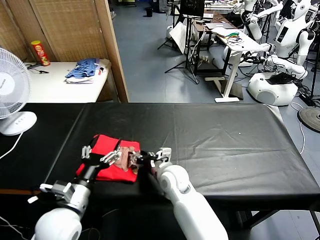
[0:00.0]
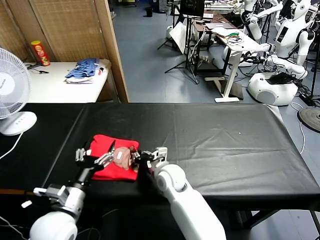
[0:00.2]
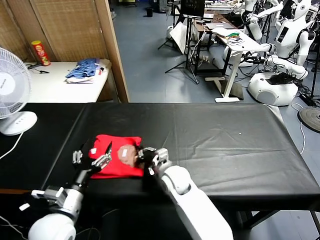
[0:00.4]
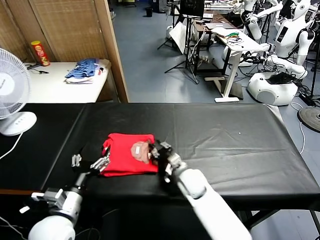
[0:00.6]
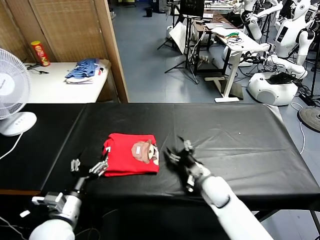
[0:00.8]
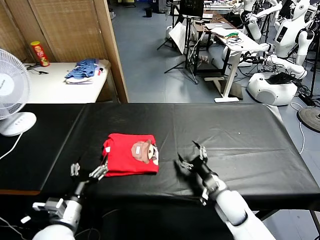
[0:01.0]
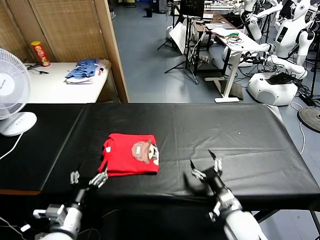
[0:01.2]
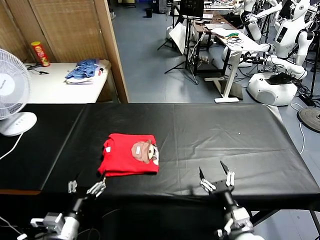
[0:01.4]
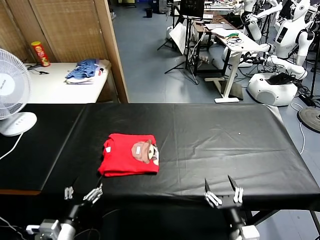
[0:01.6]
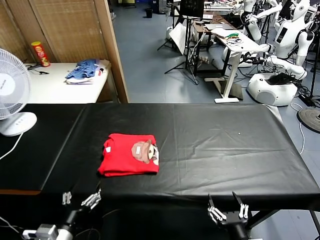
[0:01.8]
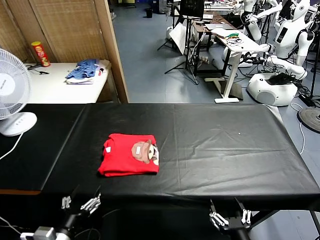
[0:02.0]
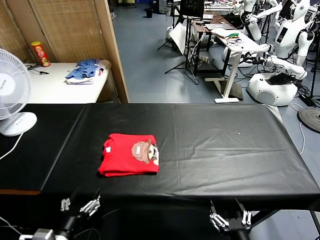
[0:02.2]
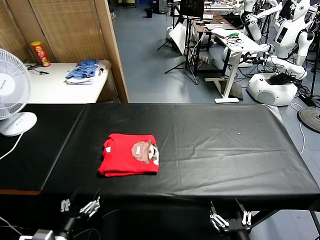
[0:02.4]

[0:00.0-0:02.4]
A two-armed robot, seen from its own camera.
Task of the whole recording: fold and organize the clothes.
Step, 0:00.0 to 0:00.6: Drag the clothes to the center of the table.
0:00.0 to 0:01.2: The left gripper changes place by approximately 5 cm. The right gripper moves to the right and backward, some 25 cm, and closes, then reopens.
0:01.2 to 0:02.4: The right gripper heads backward and upward, covering some 20 cm; the left gripper heads backward, covering about 5 cm.

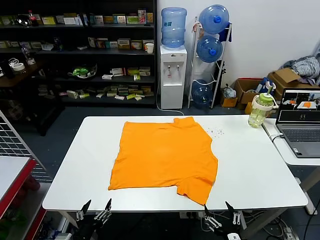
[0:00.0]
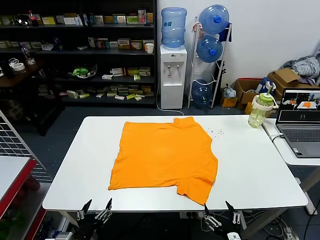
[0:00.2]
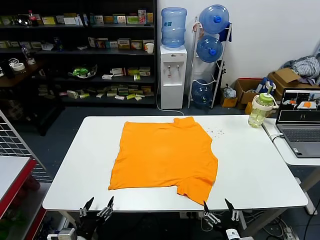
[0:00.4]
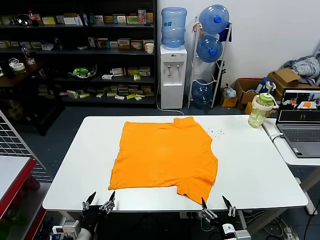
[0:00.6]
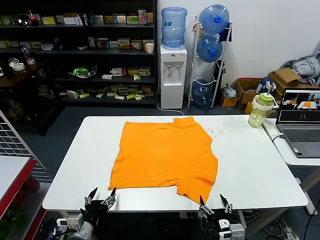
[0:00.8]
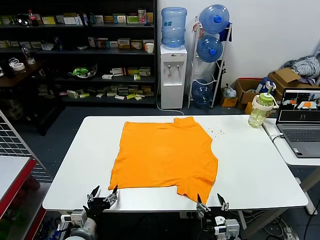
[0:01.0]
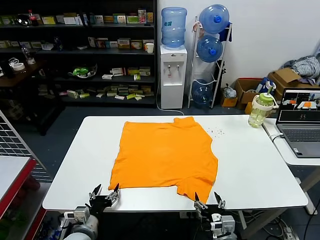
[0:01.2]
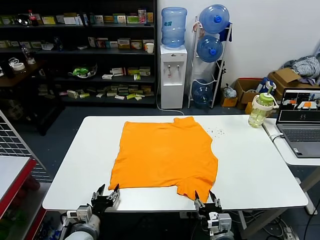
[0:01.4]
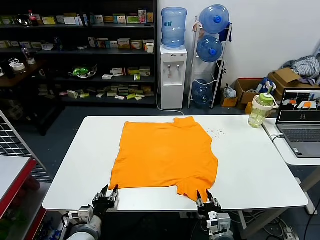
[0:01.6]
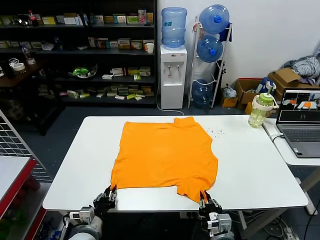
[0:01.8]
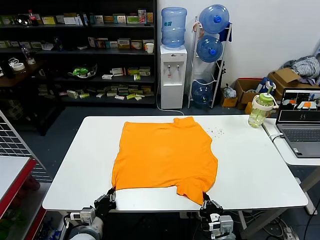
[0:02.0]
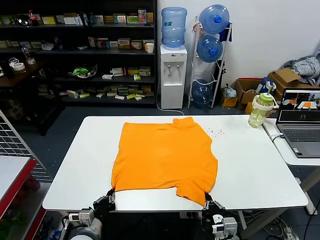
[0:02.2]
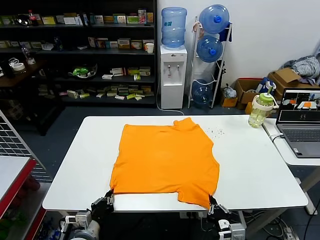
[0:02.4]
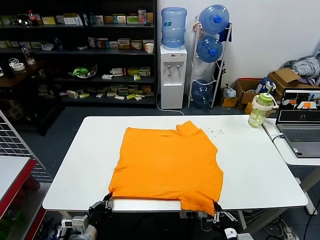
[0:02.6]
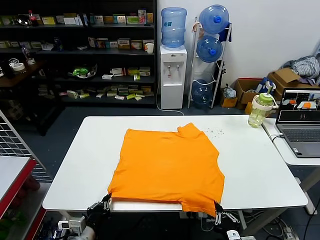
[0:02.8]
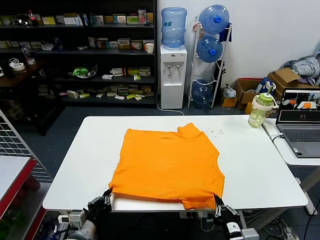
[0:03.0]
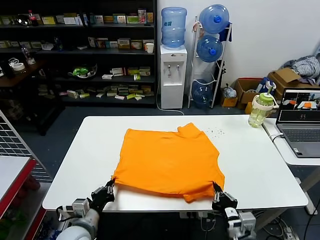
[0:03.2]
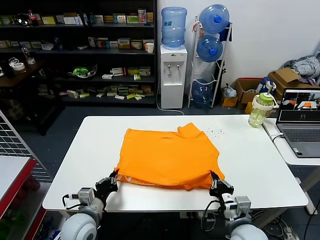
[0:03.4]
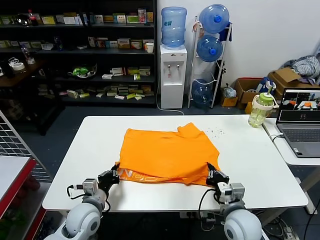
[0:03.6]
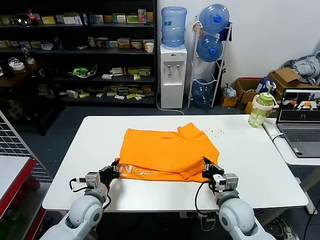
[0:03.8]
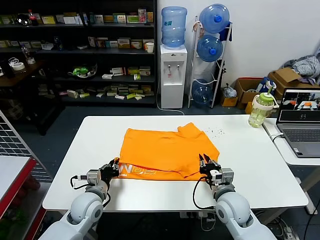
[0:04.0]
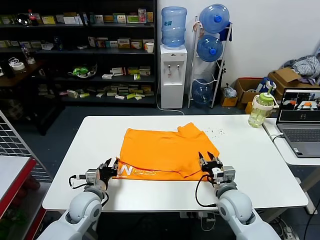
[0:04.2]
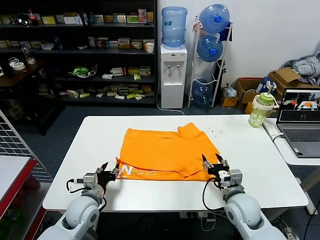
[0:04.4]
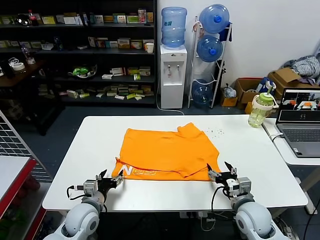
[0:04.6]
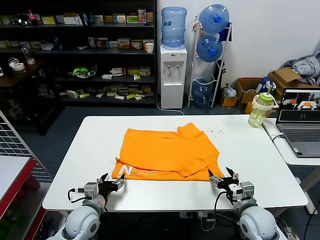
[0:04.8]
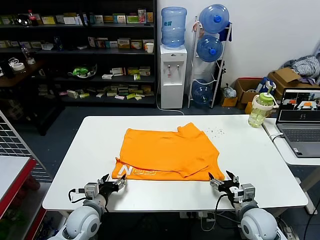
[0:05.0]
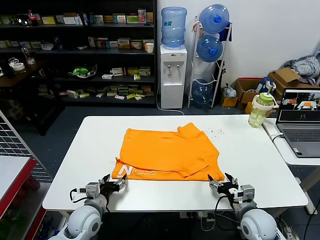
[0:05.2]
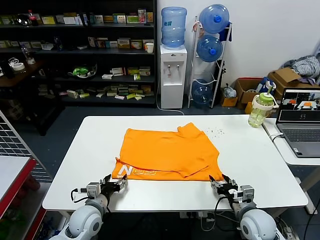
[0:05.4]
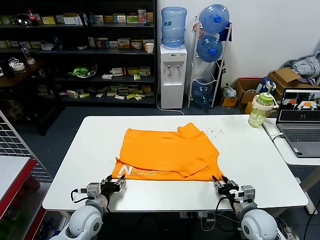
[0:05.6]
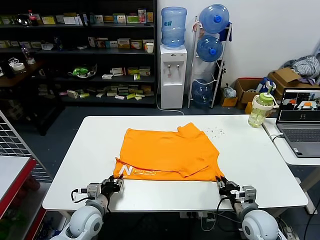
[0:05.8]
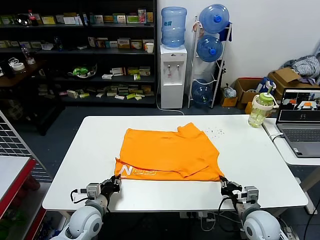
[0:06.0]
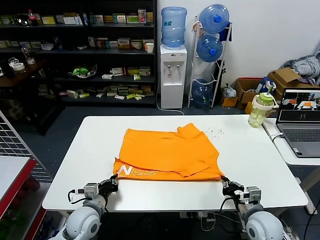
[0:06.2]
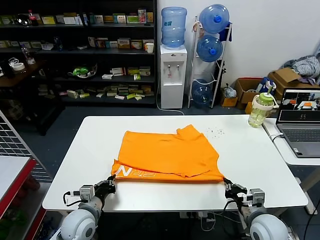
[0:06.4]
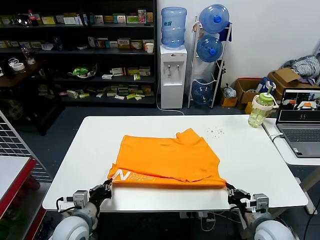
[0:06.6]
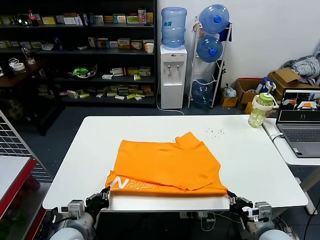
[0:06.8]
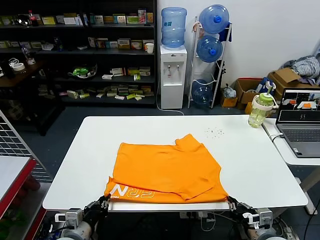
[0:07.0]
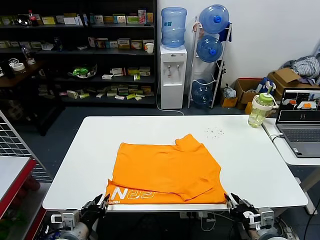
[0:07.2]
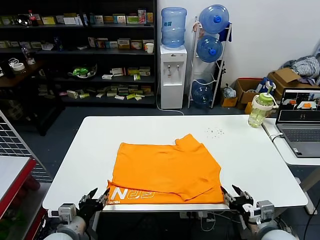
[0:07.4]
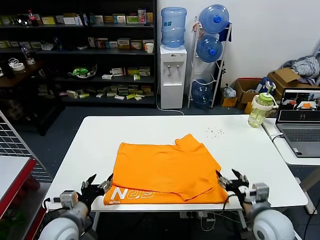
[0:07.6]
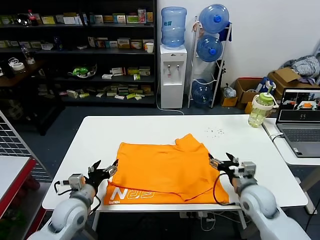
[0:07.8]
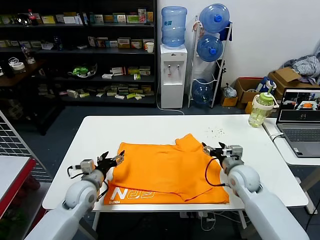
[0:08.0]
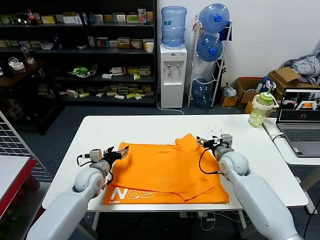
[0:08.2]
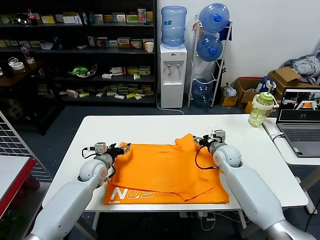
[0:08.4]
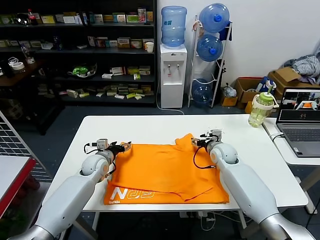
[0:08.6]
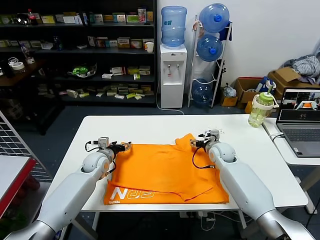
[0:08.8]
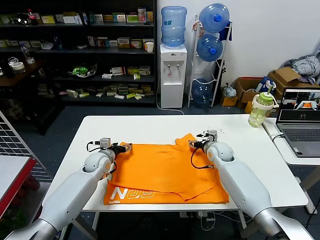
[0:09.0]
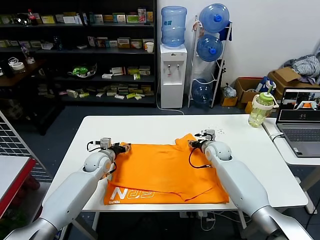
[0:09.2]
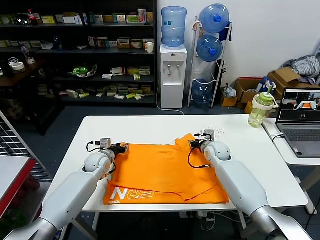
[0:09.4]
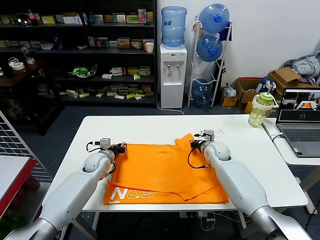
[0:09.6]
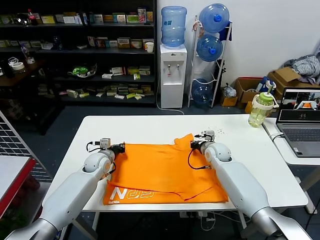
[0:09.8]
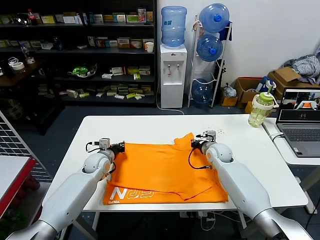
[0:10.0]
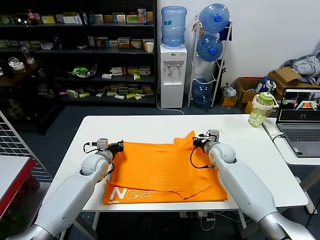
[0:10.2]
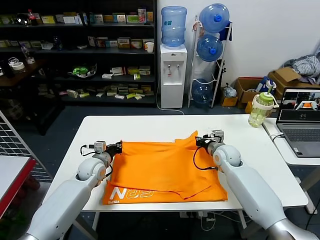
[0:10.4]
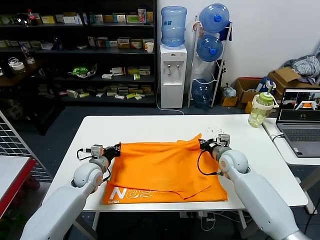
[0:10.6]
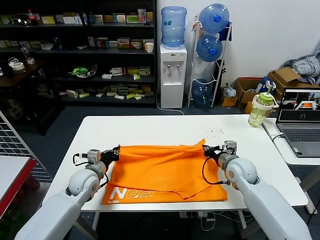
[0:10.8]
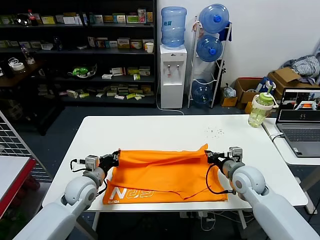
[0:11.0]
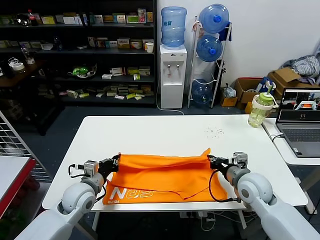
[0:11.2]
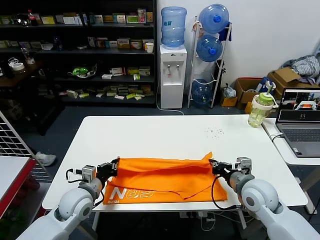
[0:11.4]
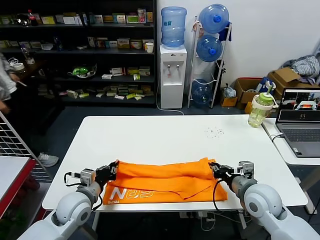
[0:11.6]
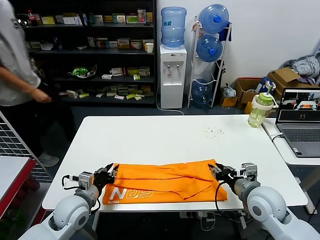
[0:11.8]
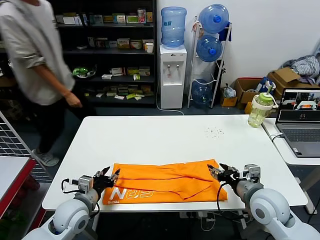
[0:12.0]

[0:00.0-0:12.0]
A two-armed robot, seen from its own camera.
Task of the whole recording: fold and organize the clothes.
Step, 0:00.0 to 0:01.8: use both grippers simultaneously to clamp the lower edge of the clothing fabric.
Step, 0:02.2 to 0:04.0: use both grippers to drag the lower edge of the fabric forward and fold it over the upper edge.
Step, 0:04.4 to 0:07.0: Drag the clothes downward with both gripper.
Step, 0:07.4 to 0:09.6: use both grippers simultaneously to clamp the upper edge of the clothing fabric.
Step, 0:09.8 to 0:11.8: use both grippers to drag the upper edge of the fabric backward and fold it over the lower edge.
0:01.6 to 0:03.0: Both grippers travel together upward, roughly 5 cm. The left gripper closes its fingers.
0:03.0 to 0:04.4: Both grippers move forward, roughly 15 cm. The left gripper opens up. The right gripper opens.
0:04.4 to 0:06.0: The right gripper moves about 5 cm, and closes up, while the left gripper closes.
0:06.0 to 0:07.6: The right gripper travels upward by approximately 5 cm, moves approximately 10 cm backward and comes back, and opens; the left gripper moves upward and backward, approximately 10 cm, and opens its fingers.
0:07.6 to 0:09.0: Both grippers move forward, approximately 25 cm.
0:09.0 to 0:10.4: The right gripper closes. The left gripper closes its fingers.
0:10.4 to 0:12.0: The two grippers go roughly 20 cm backward. The right gripper opens its fingers; the left gripper opens.

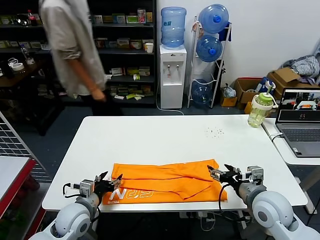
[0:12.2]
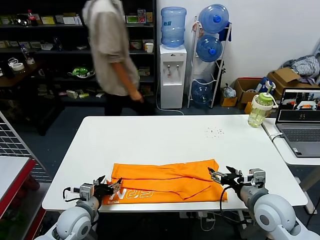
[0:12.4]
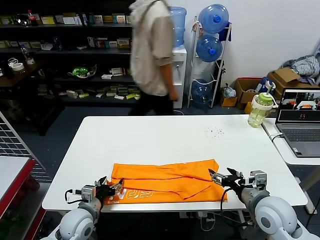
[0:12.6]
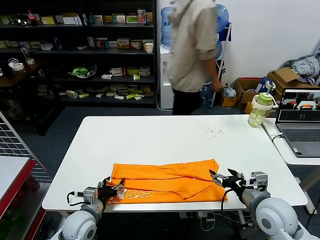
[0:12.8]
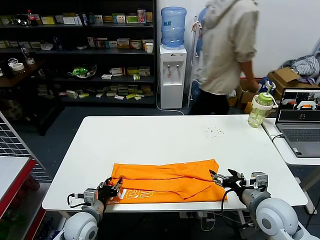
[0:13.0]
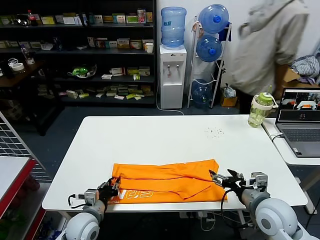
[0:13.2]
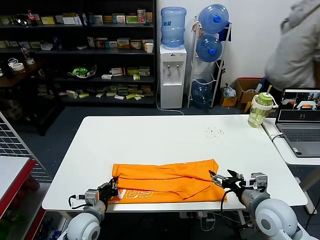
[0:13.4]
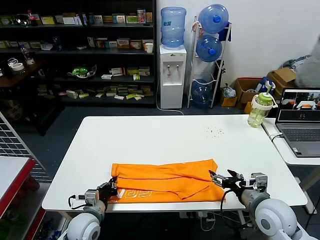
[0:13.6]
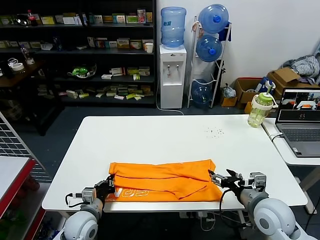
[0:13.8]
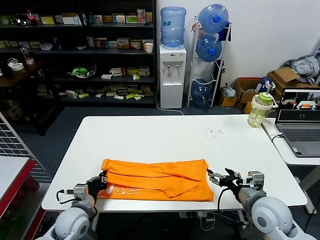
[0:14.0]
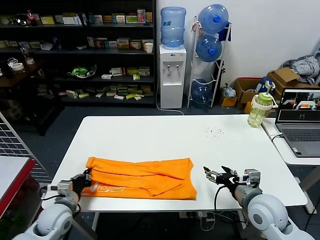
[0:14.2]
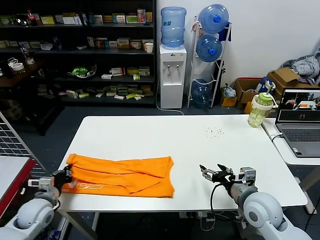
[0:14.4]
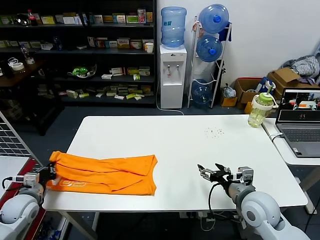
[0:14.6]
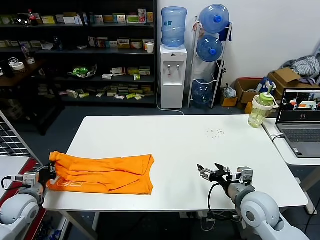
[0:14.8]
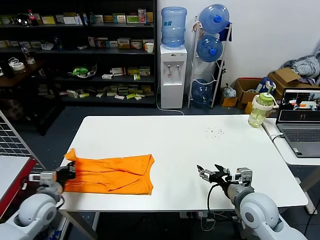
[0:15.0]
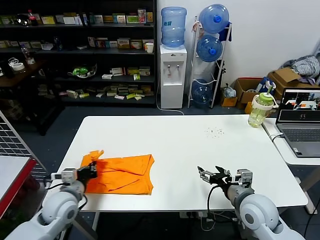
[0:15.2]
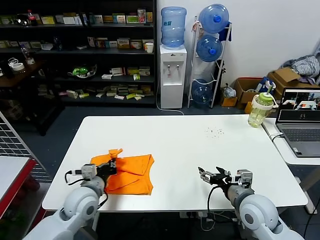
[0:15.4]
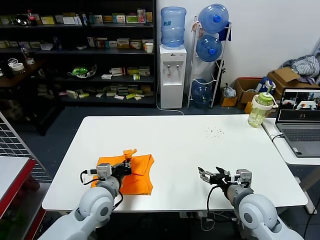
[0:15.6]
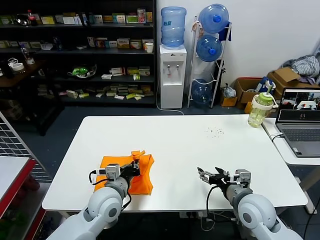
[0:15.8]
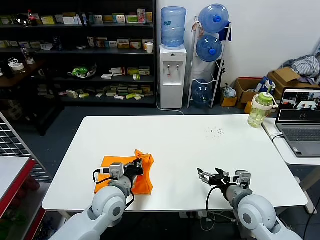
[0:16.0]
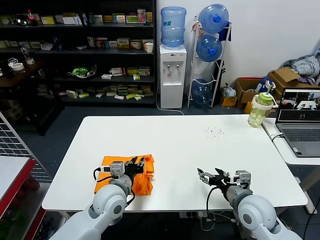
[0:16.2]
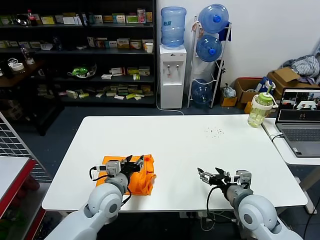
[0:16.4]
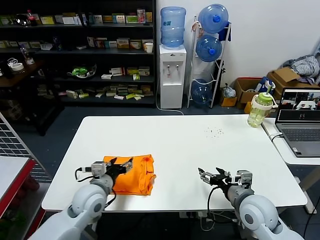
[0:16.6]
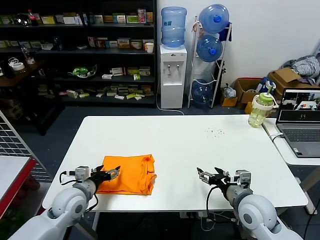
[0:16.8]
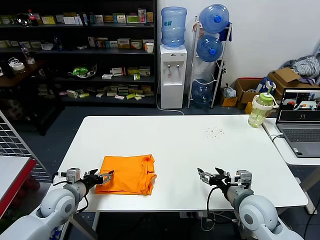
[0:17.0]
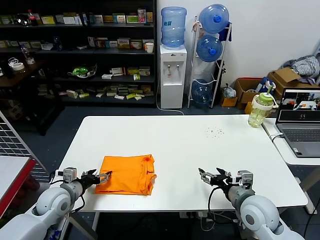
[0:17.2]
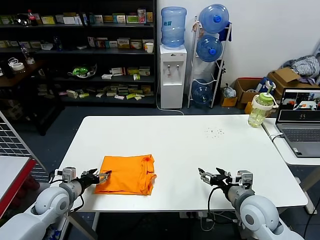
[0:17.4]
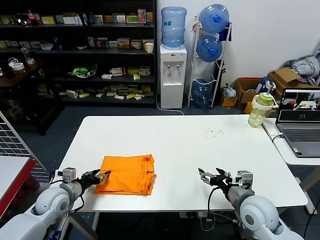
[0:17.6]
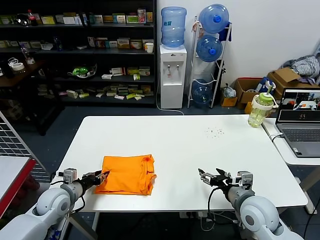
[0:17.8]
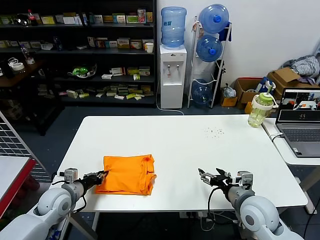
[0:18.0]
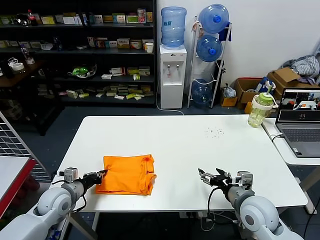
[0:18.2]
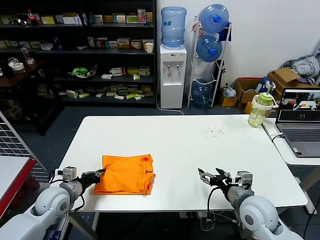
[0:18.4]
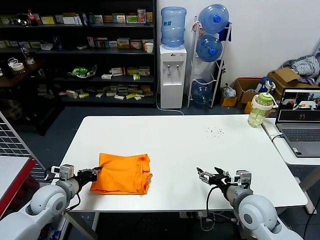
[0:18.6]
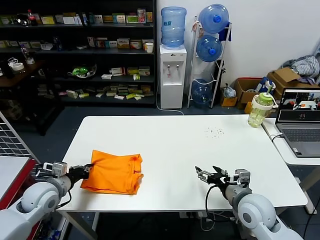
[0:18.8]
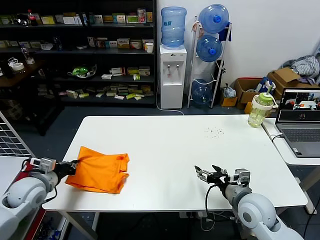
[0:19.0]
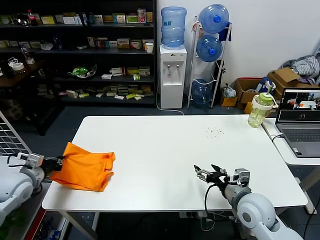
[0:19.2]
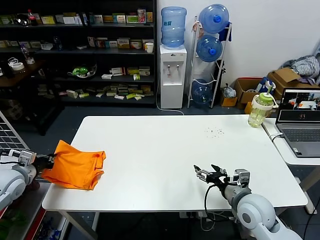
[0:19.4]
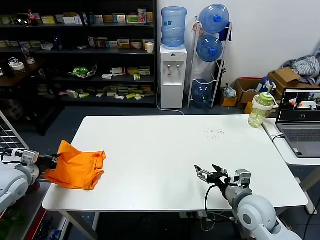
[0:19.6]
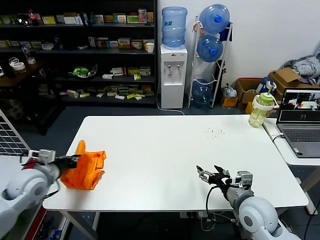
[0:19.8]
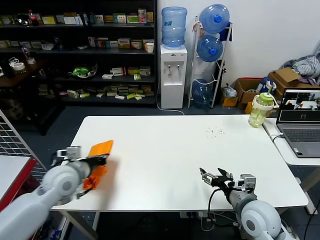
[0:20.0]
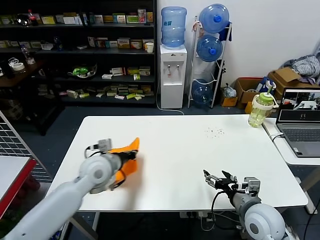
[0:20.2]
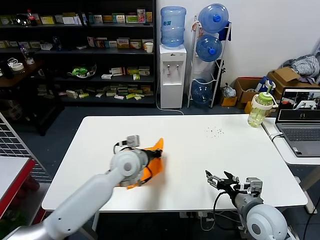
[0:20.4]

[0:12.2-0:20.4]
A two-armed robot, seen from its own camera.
Task of the whole recording: fold and organize the clothes.
Step, 0:12.2 to 0:13.4: use the left gripper to clamp the left edge of the fabric.
Step, 0:13.6 to 0:16.2: use the left gripper to drag the left edge of the fabric to the left and folds it over the right edge.
0:12.2 to 0:13.8: The left gripper travels downward by about 5 cm, and closes up.
0:13.8 to 0:15.4: The left gripper is displaced upward by some 10 cm, and moves about 20 cm to the left and comes back.
0:15.4 to 0:17.2: The left gripper heads to the left, covering approximately 10 cm, and opens its fingers.
0:17.2 to 0:18.8: The left gripper closes.
0:18.8 to 0:20.4: The left gripper goes roughly 25 cm to the right.
